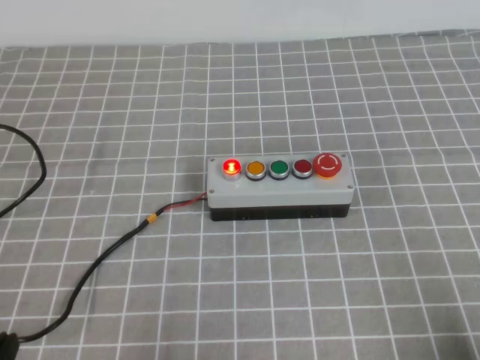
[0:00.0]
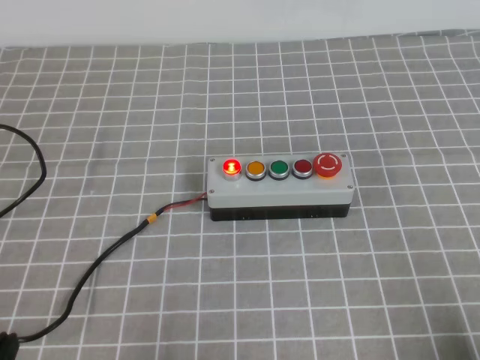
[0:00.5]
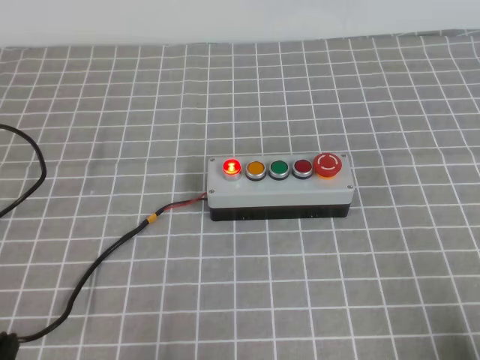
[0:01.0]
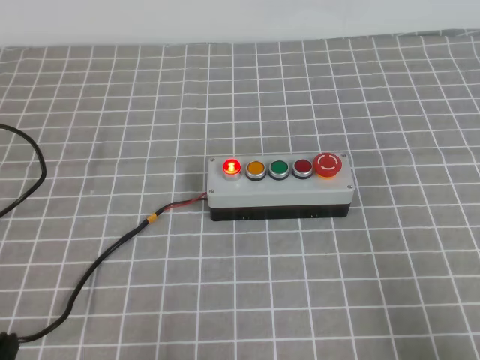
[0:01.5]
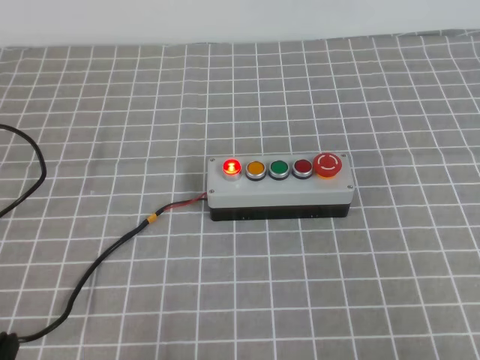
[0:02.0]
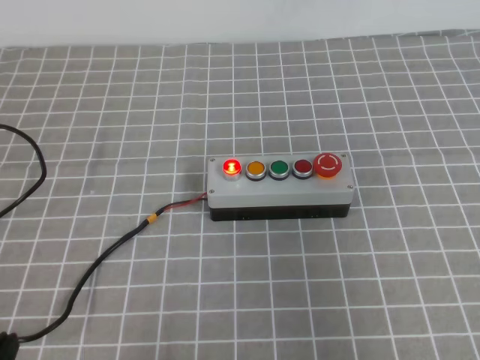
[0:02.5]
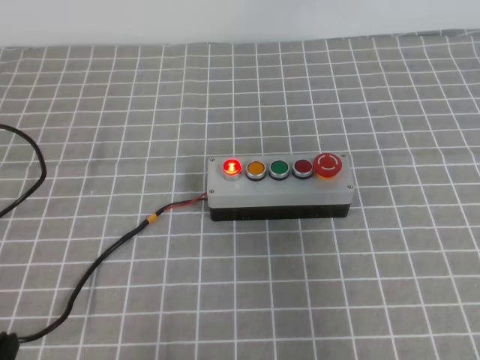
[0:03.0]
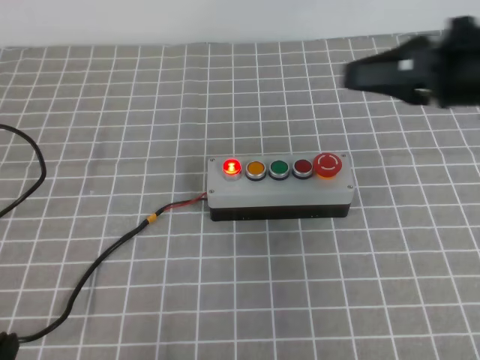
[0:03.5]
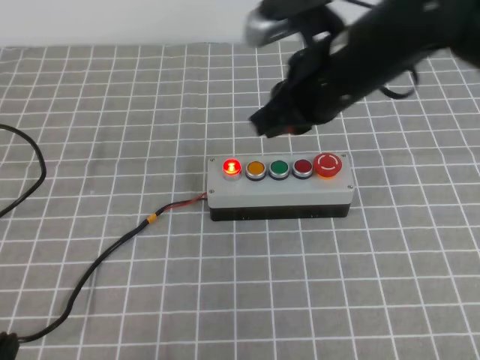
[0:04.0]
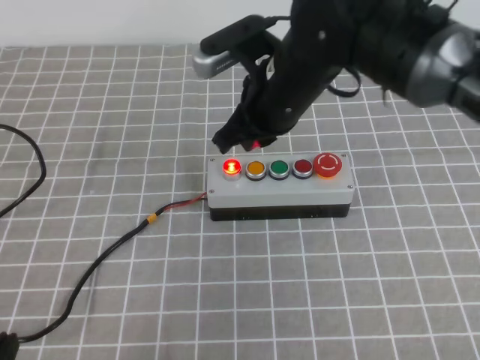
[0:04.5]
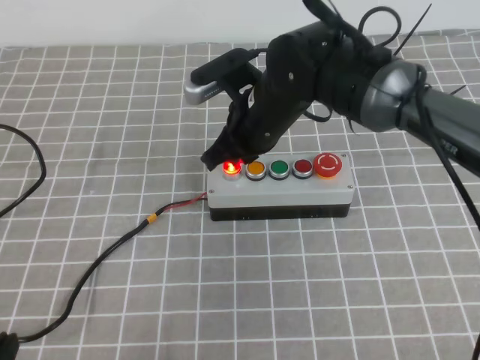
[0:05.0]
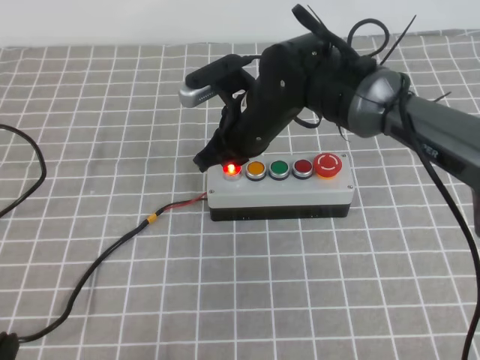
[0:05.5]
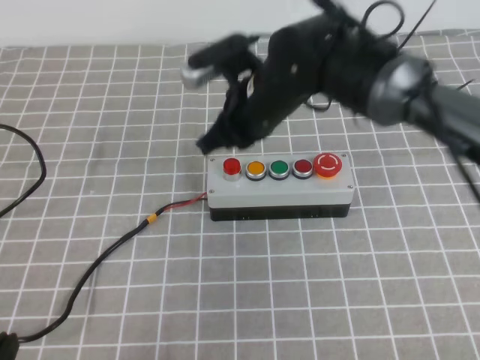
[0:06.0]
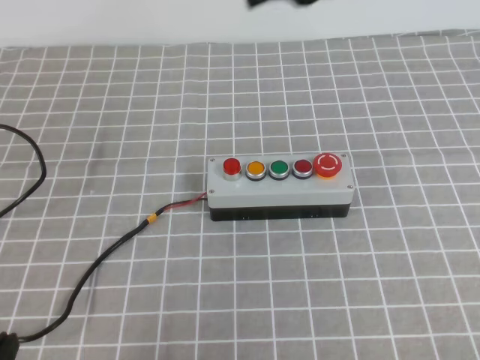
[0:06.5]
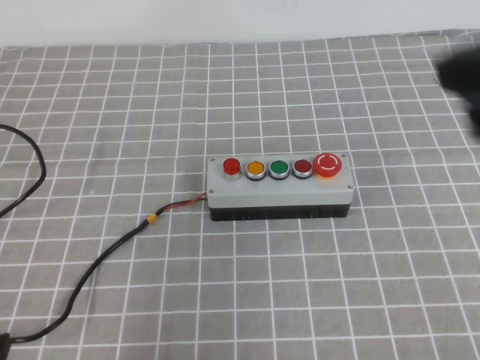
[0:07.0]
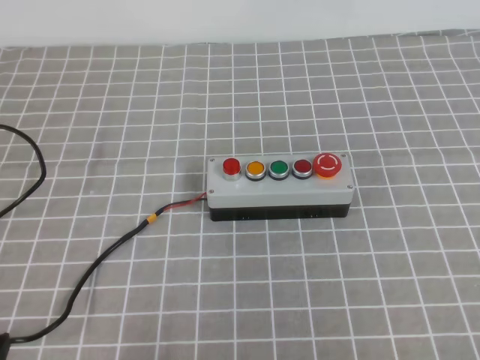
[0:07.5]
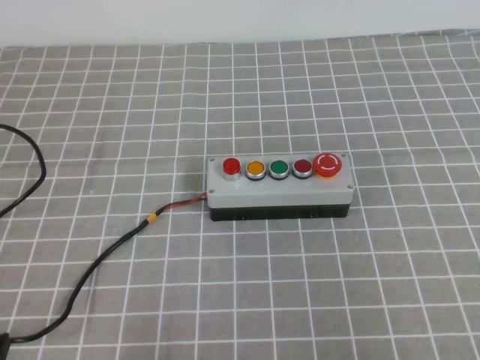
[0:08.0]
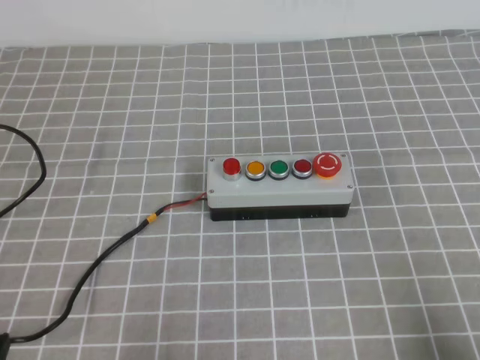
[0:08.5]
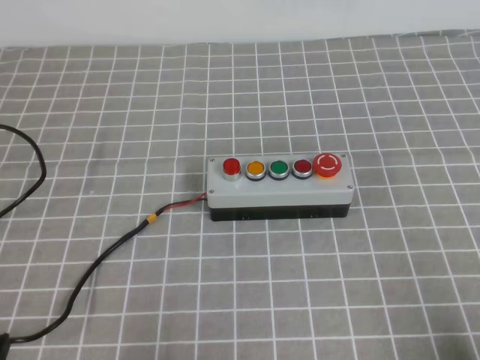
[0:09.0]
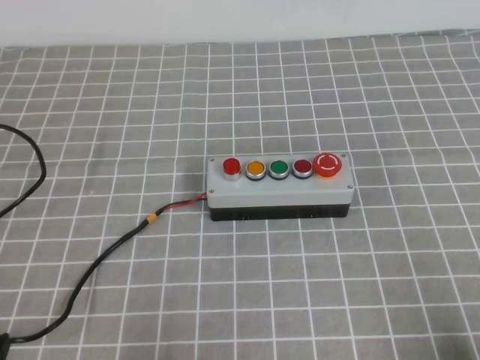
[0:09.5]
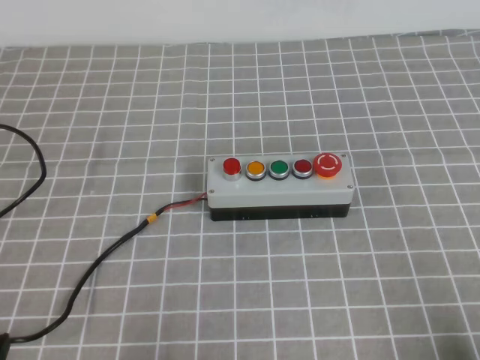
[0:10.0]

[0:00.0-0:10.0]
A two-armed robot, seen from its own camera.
Task of the whole recording: press the button switch on the grey tablecloth with the right gripper to turn off the button.
Step, 0:00.0 to 0:10.0: Press the button to turn off.
0:00.0 to 0:02.0: The right gripper moves upward, approximately 15 cm.
0:02.0 to 0:04.0: The right gripper is displaced forward and to the left by approximately 40 cm.
0:04.0 to 0:06.0: The right gripper heads to the left, forward and downward, covering about 10 cm.
0:06.0 to 0:08.0: The right gripper is displaced backward and to the right by some 40 cm.
0:08.0 to 0:10.0: The right gripper travels downward by roughly 20 cm.
